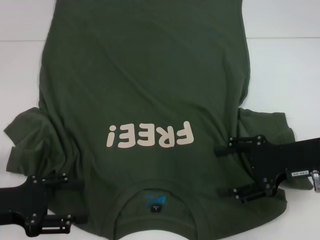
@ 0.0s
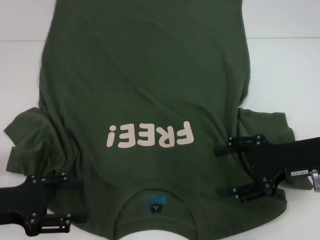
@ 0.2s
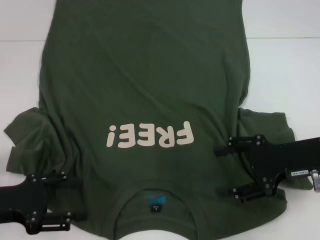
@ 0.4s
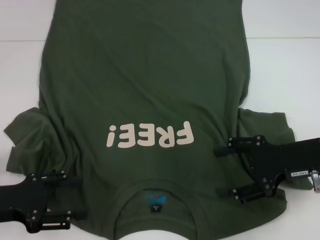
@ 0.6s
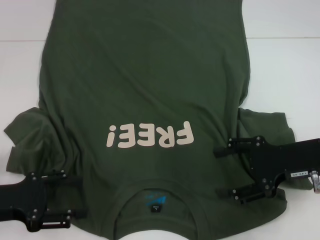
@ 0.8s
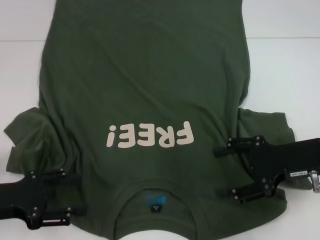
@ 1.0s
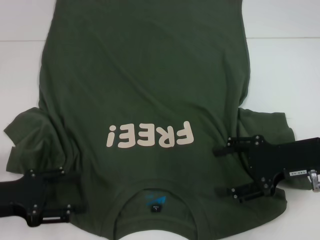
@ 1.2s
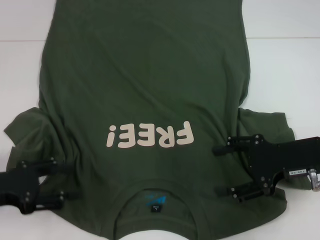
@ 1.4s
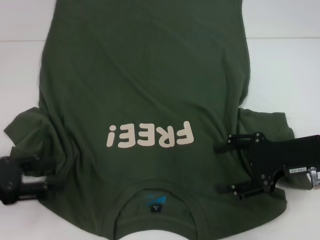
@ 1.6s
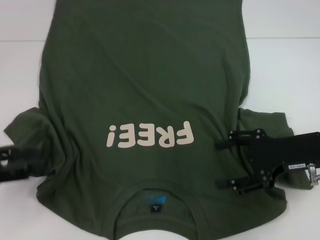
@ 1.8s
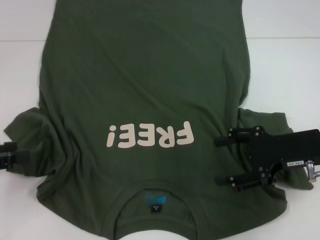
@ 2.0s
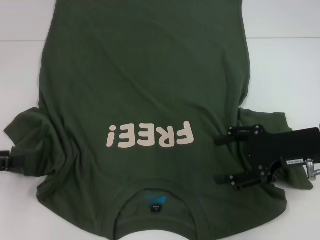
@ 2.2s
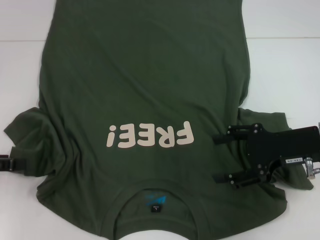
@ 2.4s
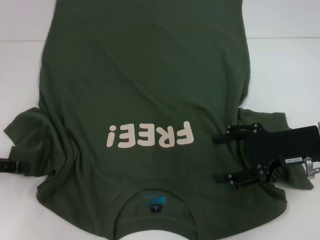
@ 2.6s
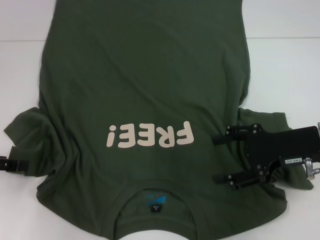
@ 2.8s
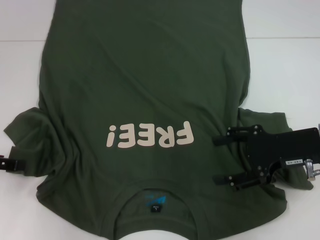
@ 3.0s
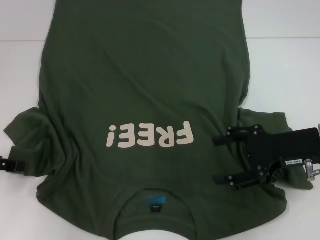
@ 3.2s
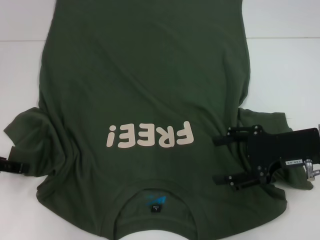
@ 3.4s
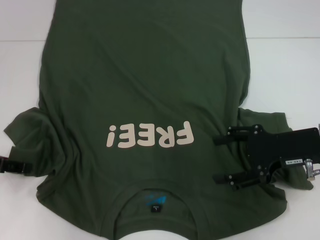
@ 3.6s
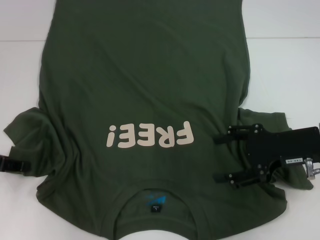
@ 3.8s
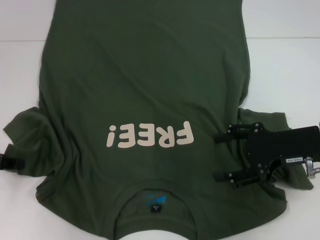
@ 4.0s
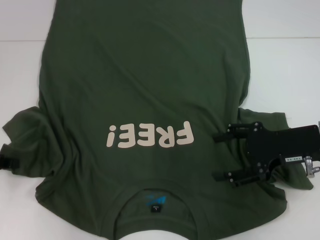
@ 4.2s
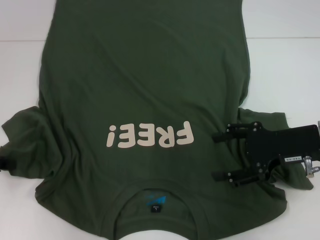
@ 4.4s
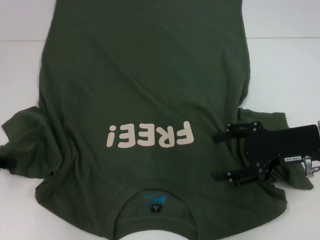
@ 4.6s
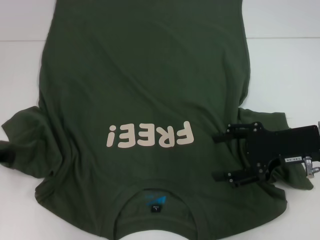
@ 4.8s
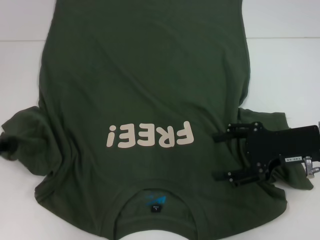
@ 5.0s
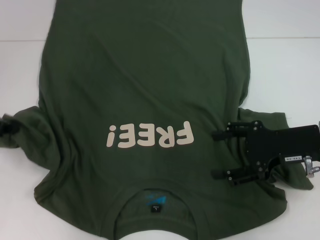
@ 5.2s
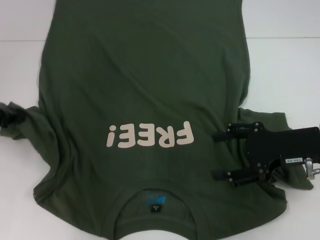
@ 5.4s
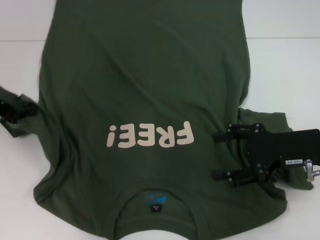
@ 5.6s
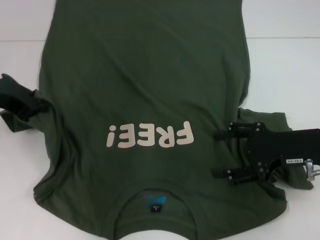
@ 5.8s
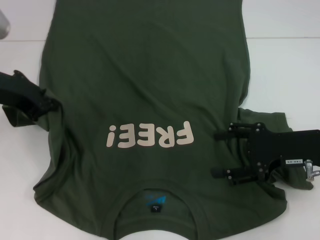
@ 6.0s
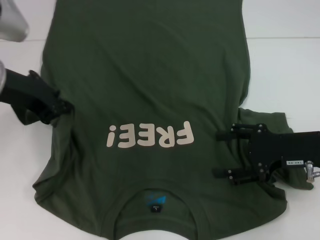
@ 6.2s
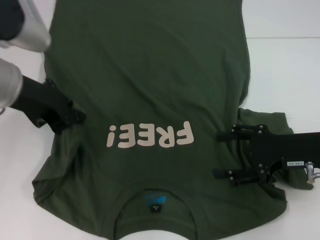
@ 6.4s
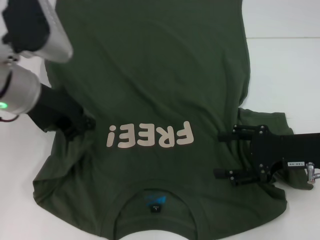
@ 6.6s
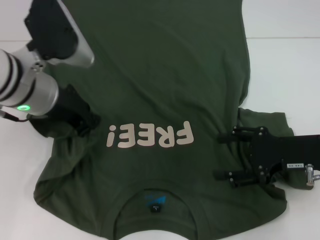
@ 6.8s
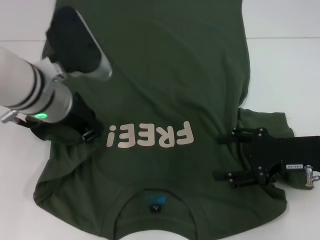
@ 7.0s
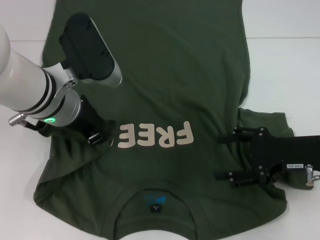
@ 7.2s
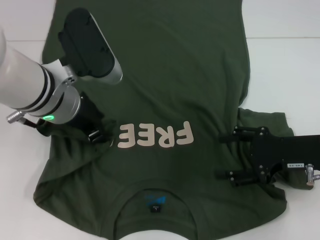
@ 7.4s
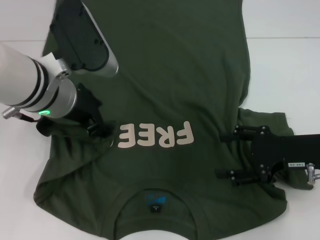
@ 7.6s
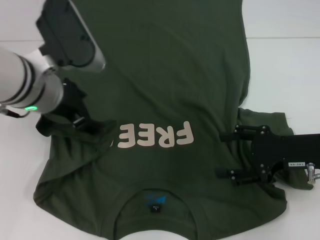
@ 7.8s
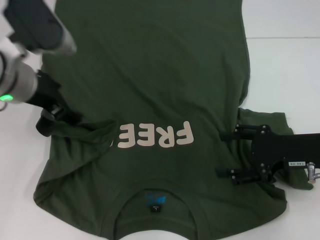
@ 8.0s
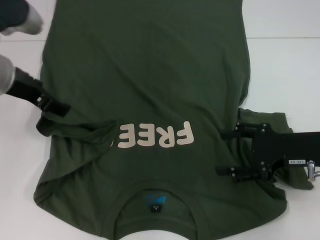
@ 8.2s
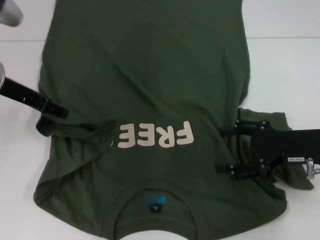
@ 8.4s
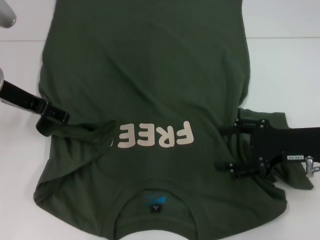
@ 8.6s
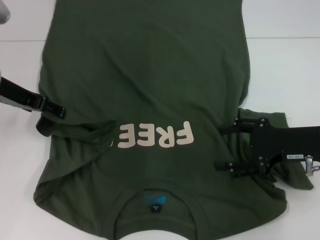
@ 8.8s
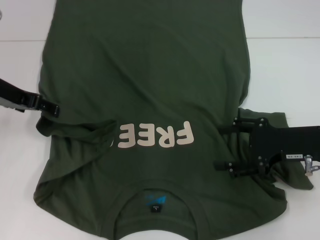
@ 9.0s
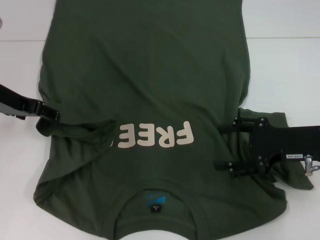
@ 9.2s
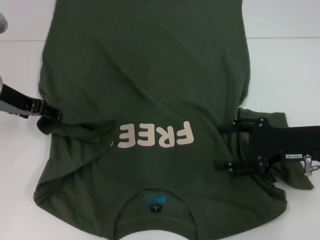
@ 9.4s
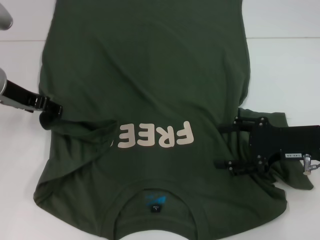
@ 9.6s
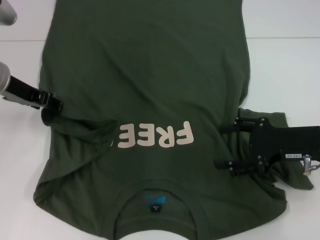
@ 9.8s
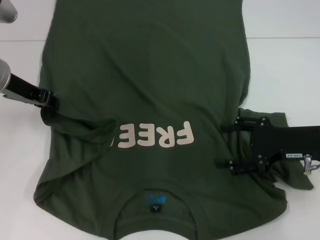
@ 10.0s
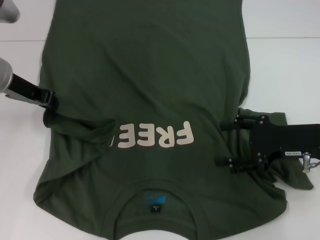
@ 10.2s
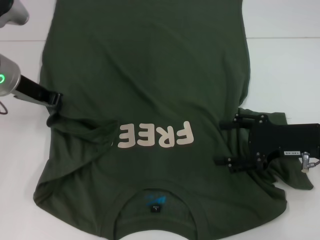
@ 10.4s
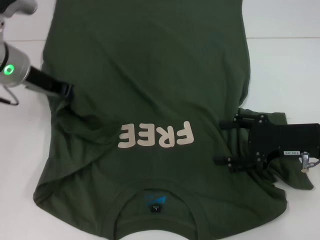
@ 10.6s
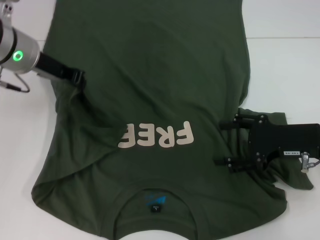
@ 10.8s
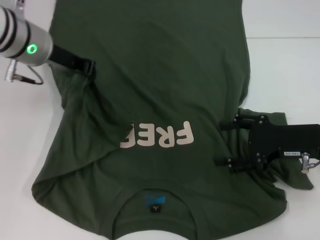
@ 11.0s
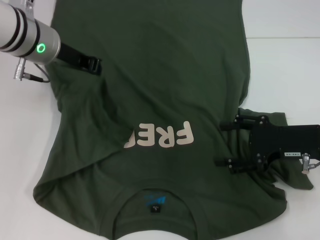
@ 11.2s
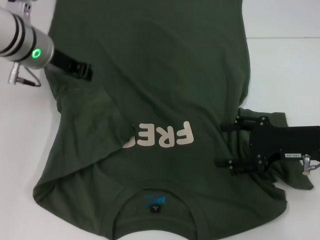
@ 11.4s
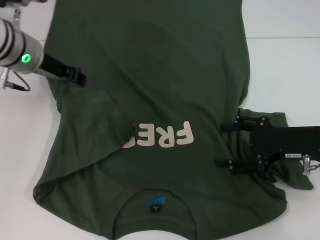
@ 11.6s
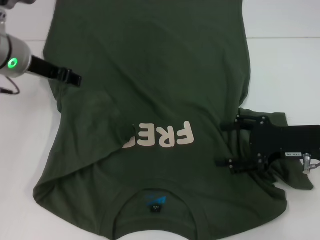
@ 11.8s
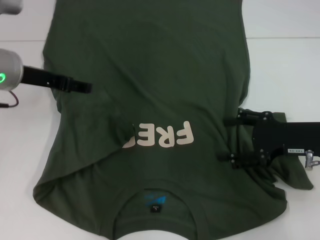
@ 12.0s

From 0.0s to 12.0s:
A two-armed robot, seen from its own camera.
Step, from 0.0s to 11.6s: Fold the bottom left sleeve with your left hand.
From 0.0s to 1.6s: There are only small adjustments of the grippers.
From 1.6s to 3.0s: The left gripper shifts by approximately 5 cm.
From 3.0s to 4.4s: The left gripper closes up.
From 4.4s to 6.0s: The left gripper moves to the right and upward, roughly 10 cm.
From 6.0s to 7.6s: The left gripper goes some 10 cm to the right, and opens.
From 7.6s to 9.0s: The left gripper is displaced to the left by approximately 10 cm, and opens up.
From 9.0s to 10.4s: The left gripper closes its fingers.
From 10.4s to 12.0s: The left gripper opens.

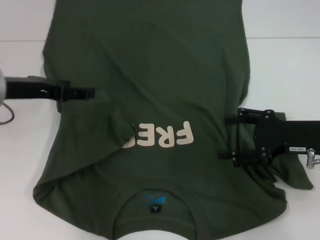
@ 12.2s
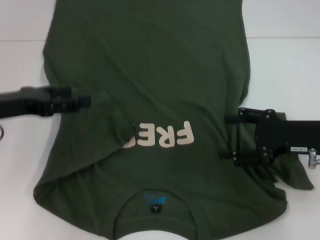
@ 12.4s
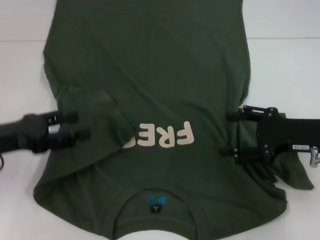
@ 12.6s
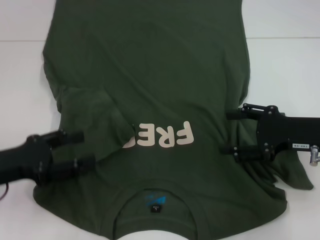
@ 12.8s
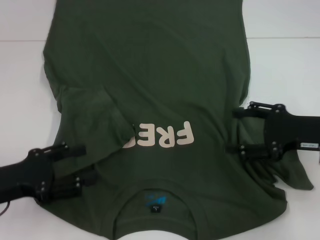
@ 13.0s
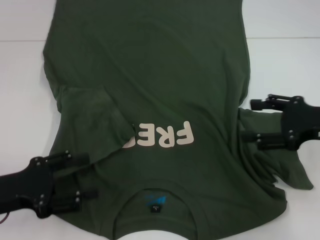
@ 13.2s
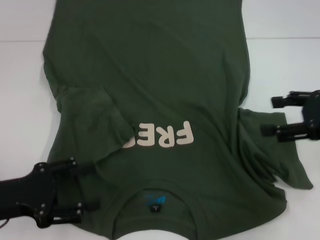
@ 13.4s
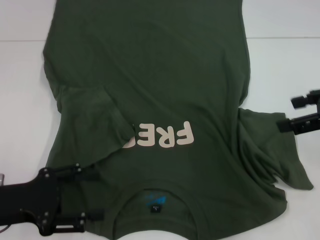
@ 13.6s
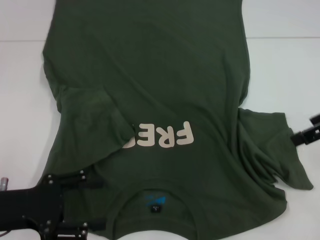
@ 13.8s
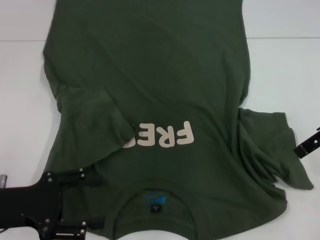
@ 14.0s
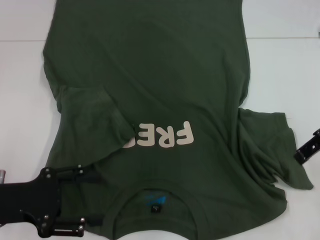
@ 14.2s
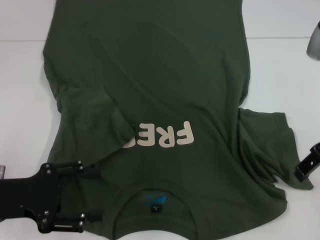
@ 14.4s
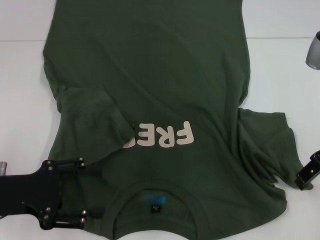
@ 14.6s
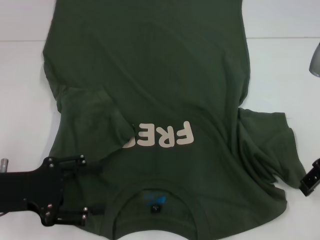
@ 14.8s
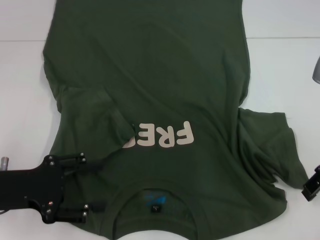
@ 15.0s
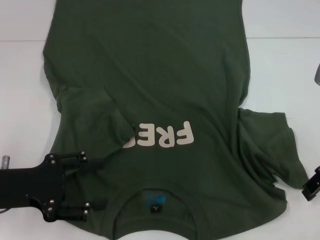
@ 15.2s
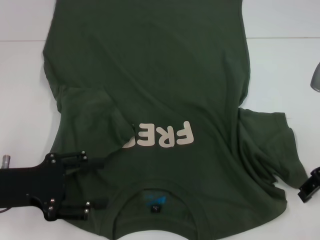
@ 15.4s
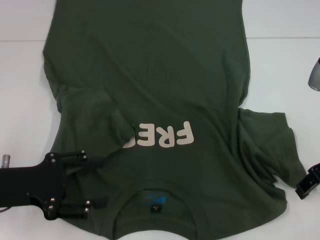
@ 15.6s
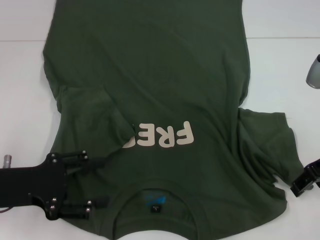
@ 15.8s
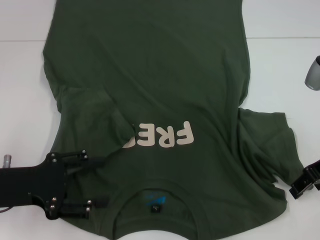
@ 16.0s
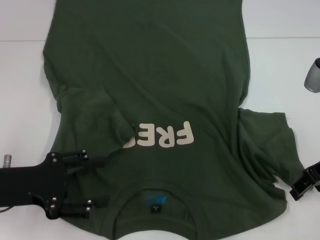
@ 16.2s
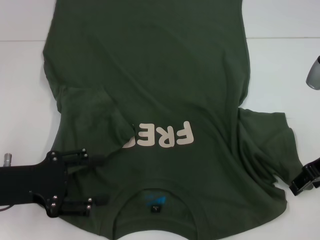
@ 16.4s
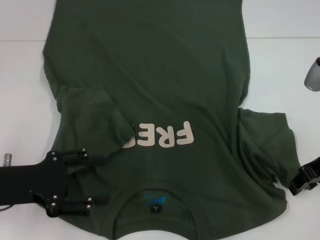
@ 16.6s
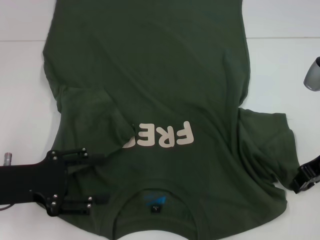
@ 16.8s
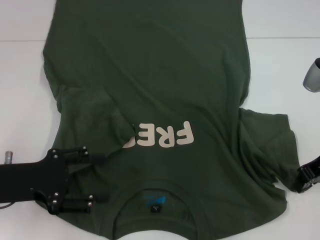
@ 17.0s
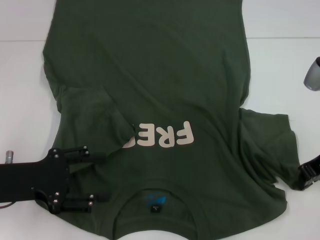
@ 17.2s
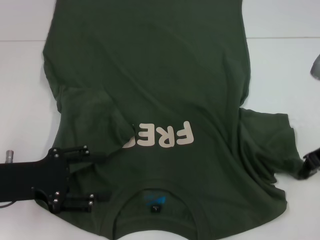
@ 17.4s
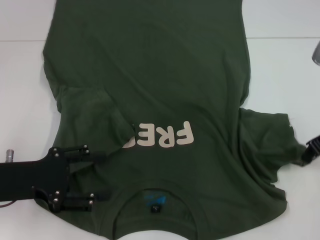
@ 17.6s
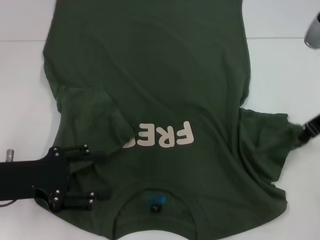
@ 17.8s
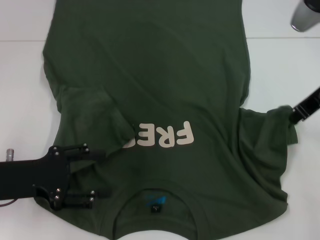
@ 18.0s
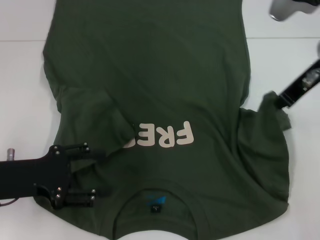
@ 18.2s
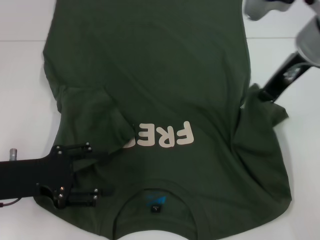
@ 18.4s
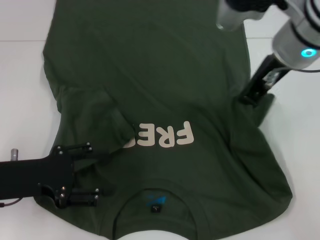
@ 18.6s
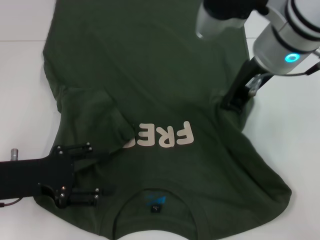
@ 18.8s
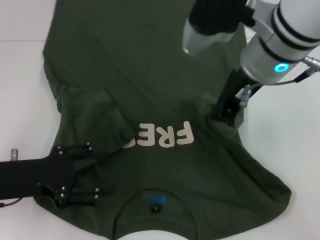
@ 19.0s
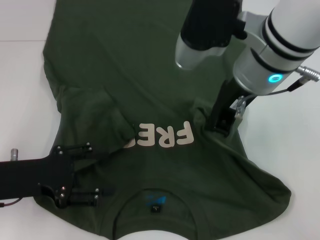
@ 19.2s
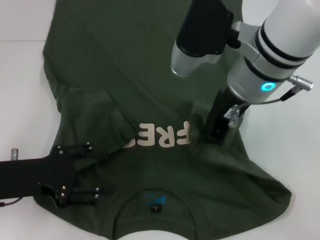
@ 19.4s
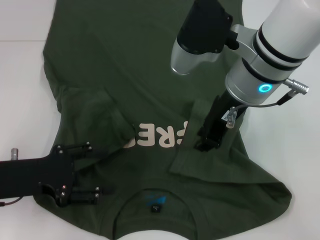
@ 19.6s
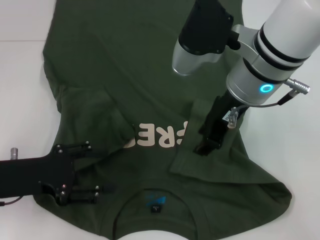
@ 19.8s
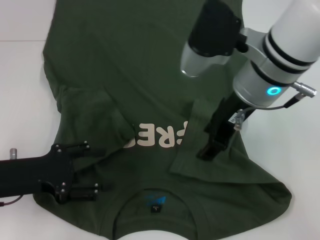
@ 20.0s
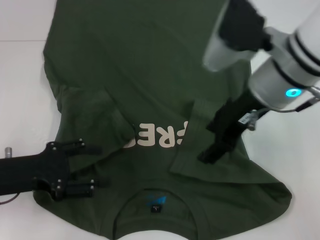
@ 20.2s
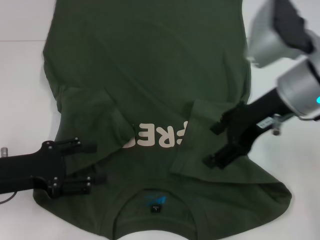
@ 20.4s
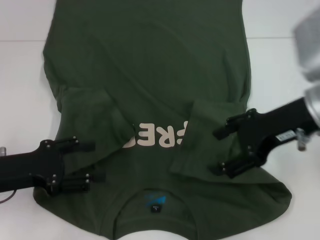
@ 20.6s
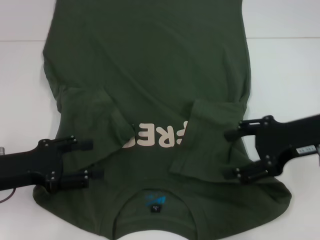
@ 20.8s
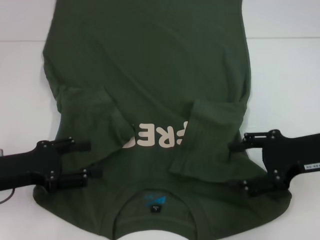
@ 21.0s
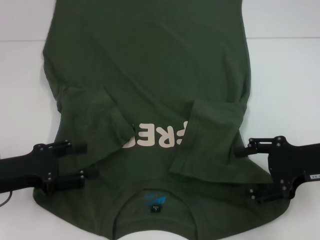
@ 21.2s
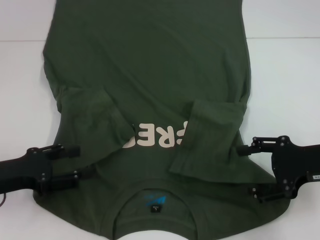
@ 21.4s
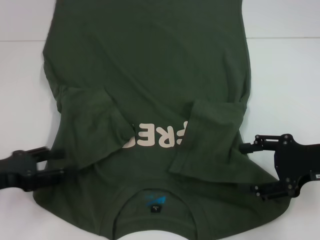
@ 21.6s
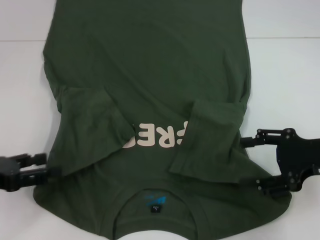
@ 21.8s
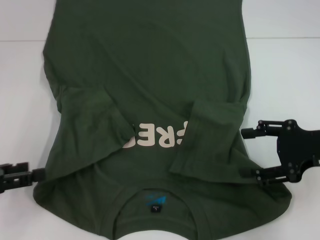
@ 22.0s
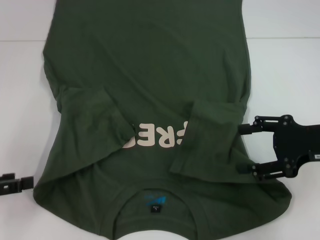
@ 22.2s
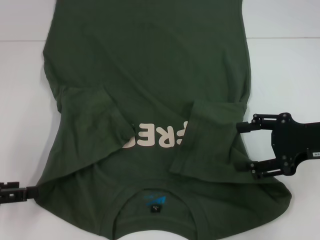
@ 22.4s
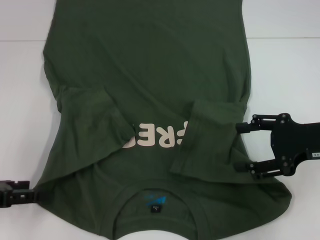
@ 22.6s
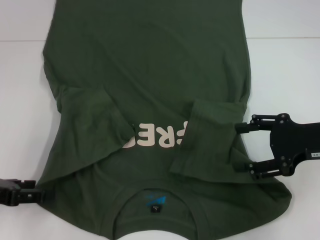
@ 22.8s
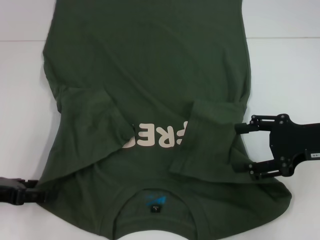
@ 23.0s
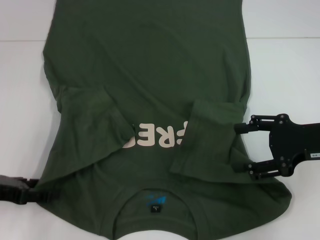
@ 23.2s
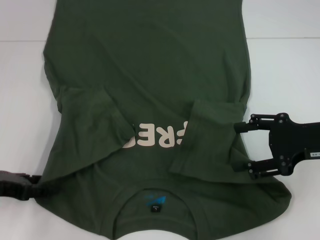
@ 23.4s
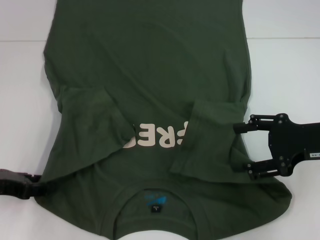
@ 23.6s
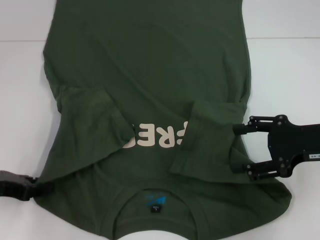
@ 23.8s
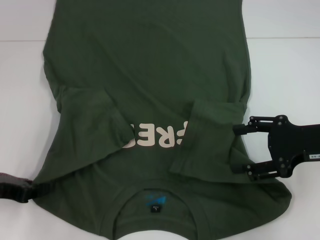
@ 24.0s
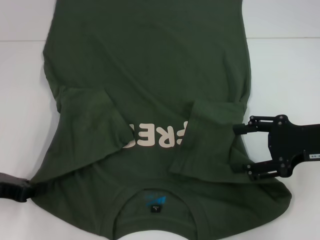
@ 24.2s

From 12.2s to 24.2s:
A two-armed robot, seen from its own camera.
Step, from 12.2s to 20.0s: Fold the bottom right sleeve with your right hand.
From 12.2s to 13.8s: The left gripper moves backward and downward, about 15 cm. Meanwhile the right gripper shifts approximately 15 cm upward.
From 13.8s to 15.2s: The right gripper goes about 5 cm downward.
From 15.2s to 16.6s: The grippers move only a little.
From 16.6s to 18.2s: The right gripper travels upward and to the left by approximately 10 cm, and closes up.
From 18.2s to 19.8s: The right gripper is displaced to the left by roughly 10 cm.
From 19.8s to 21.2s: The right gripper goes approximately 20 cm to the right, downward and backward, and opens up.
From 21.2s to 22.6s: The left gripper changes place by some 5 cm.
From 22.6s to 24.2s: The left gripper closes up.
